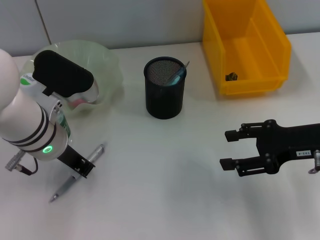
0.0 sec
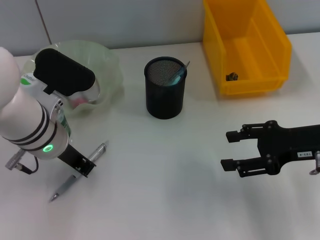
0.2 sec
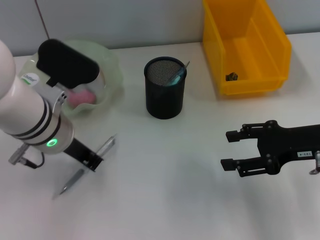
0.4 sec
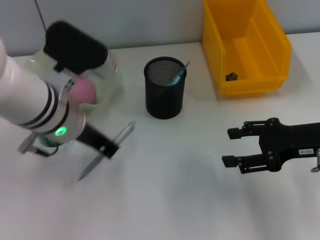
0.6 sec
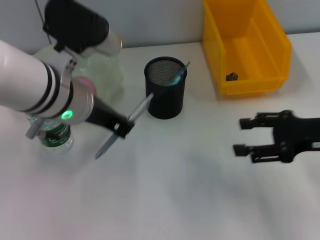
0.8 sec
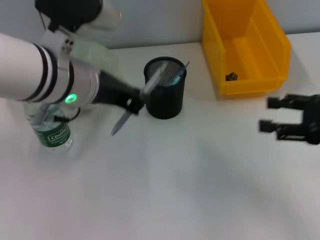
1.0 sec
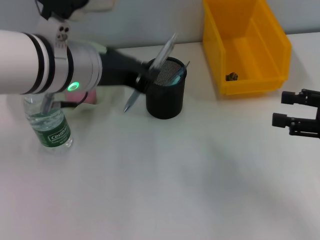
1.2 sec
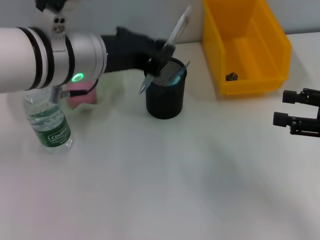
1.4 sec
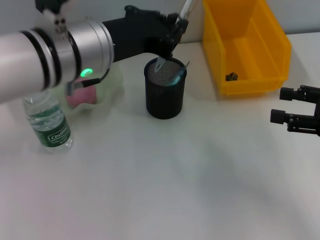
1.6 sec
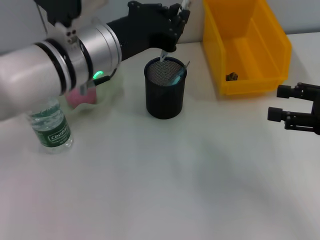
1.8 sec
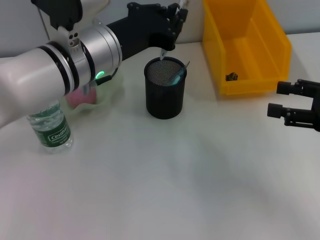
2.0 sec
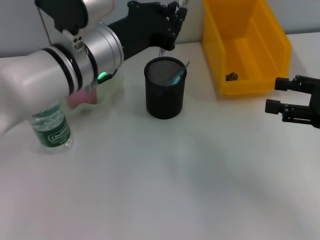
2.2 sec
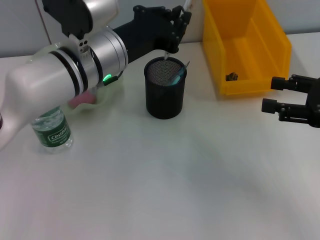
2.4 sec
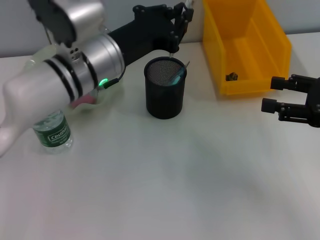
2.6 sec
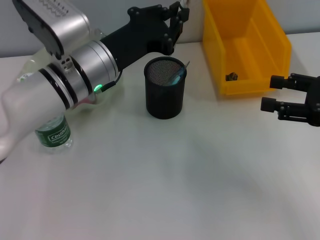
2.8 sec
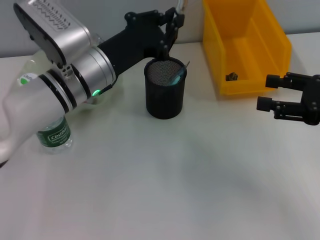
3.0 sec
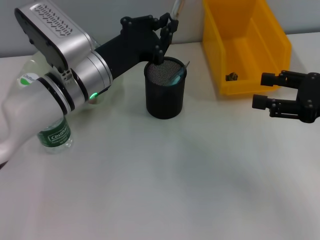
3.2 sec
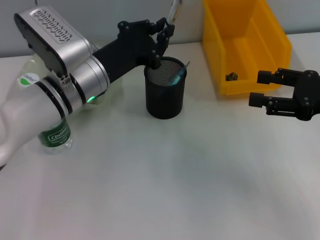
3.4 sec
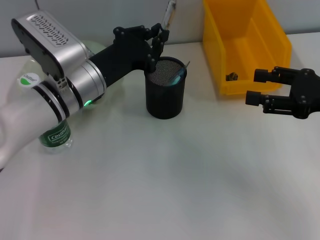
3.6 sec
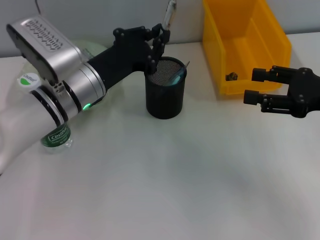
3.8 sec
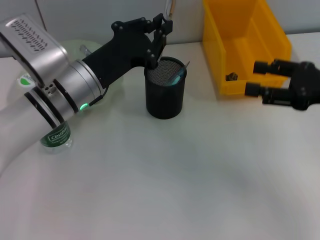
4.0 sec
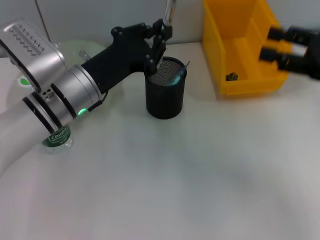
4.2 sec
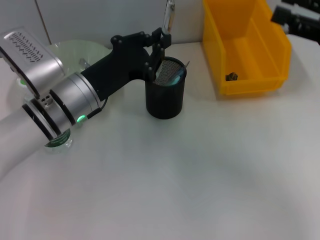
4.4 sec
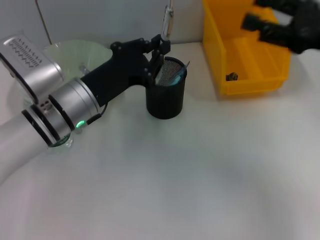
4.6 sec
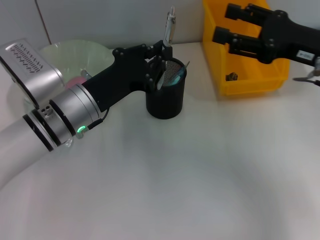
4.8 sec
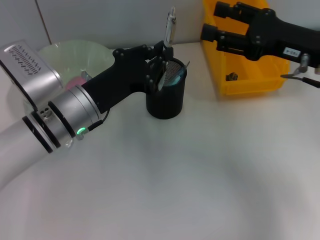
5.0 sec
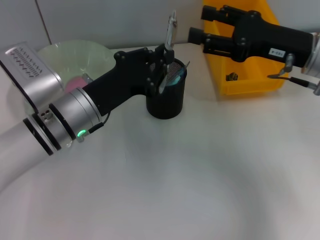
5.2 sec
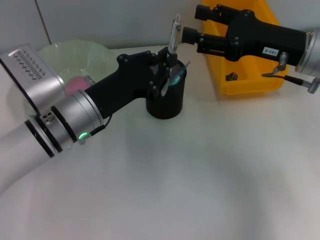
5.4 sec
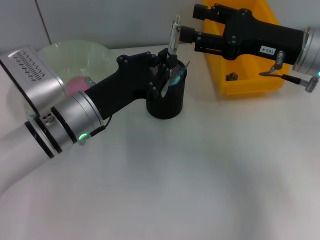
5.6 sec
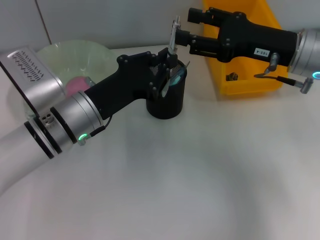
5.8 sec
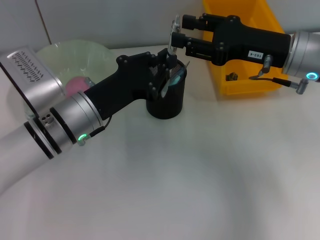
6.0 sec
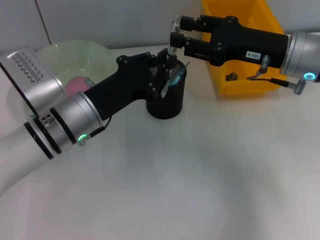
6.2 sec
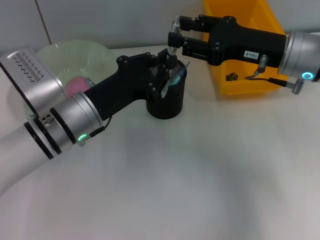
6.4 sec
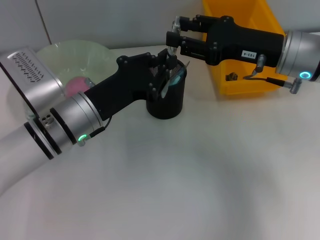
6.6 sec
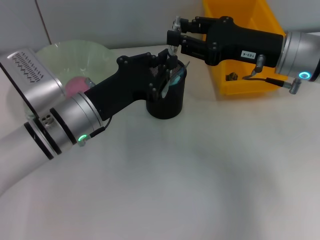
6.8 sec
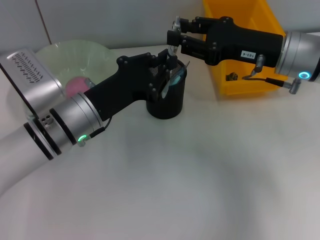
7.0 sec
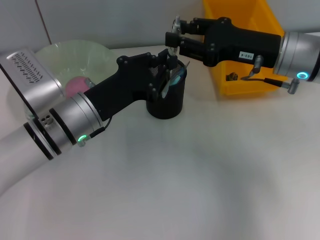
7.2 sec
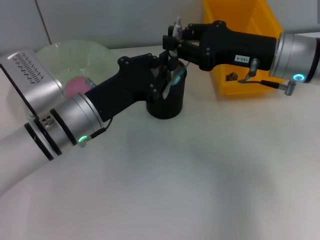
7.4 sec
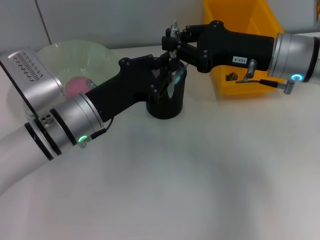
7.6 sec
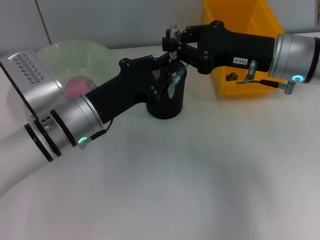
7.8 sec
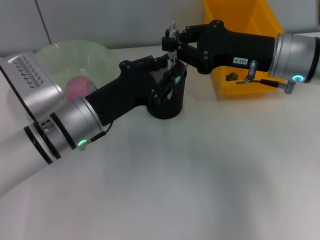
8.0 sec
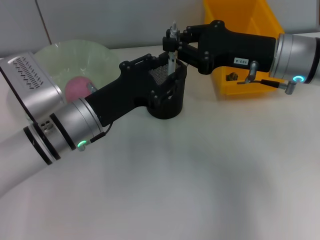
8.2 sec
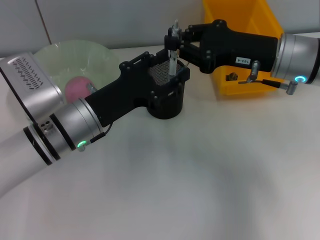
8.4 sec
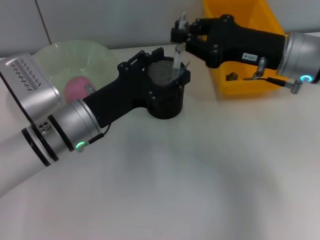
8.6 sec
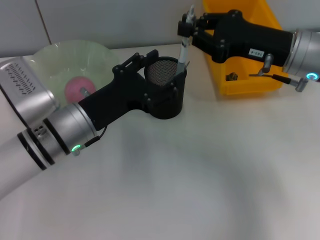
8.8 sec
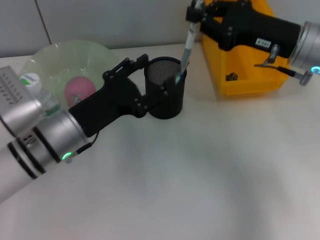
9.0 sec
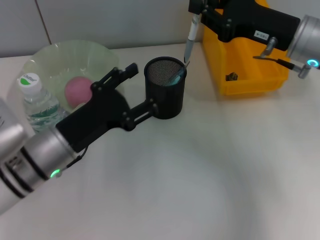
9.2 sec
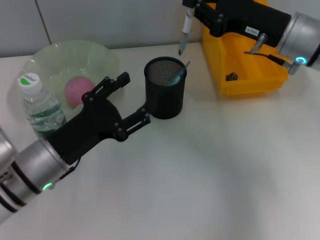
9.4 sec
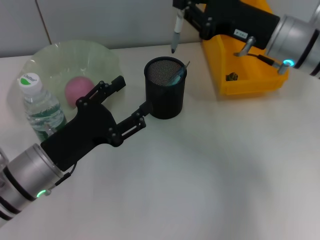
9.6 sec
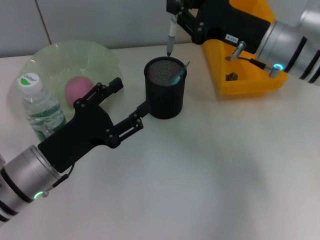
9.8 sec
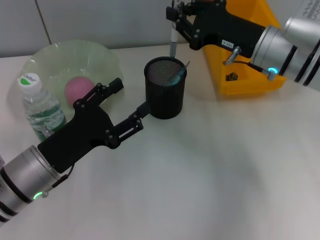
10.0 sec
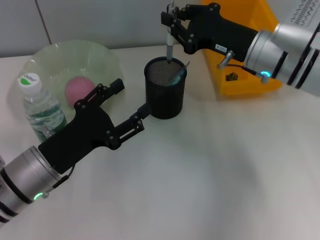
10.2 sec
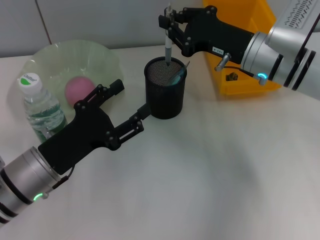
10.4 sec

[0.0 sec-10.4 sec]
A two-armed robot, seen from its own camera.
Step, 0.2 sec to 8.6 sec: Pass the gray spring-action pen from the left hand to the right hand.
0.0 sec to 1.4 sec: The right gripper goes some 5 cm to the right. Meanwhile the left gripper goes about 10 cm upward.
1.4 sec to 3.0 sec: The left gripper is displaced downward by approximately 10 cm.
3.0 sec to 4.4 sec: The right gripper ends up roughly 5 cm from where it was.
4.4 sec to 6.0 sec: The right gripper travels to the left and forward by about 10 cm.
6.0 sec to 7.4 sec: The right gripper closes.
7.4 sec to 9.0 sec: The left gripper opens its fingers.
9.0 sec to 10.4 sec: The left gripper ends up approximately 5 cm from where it was, while the right gripper shifts by approximately 5 cm.

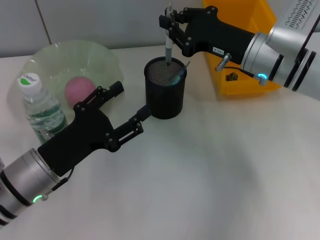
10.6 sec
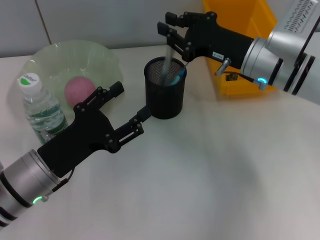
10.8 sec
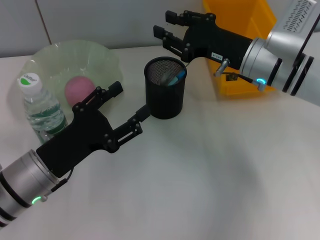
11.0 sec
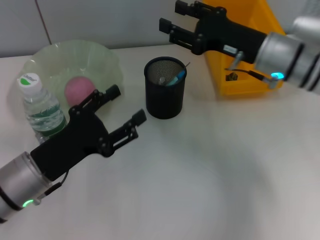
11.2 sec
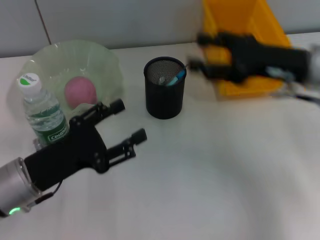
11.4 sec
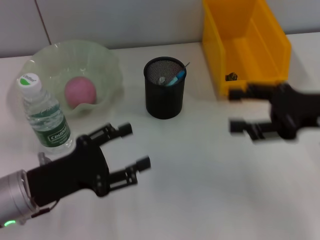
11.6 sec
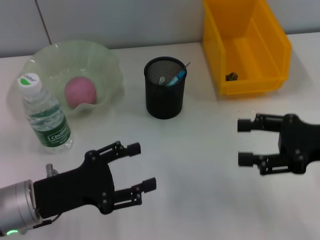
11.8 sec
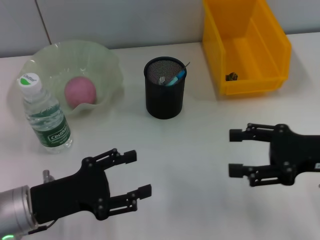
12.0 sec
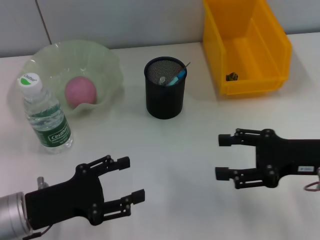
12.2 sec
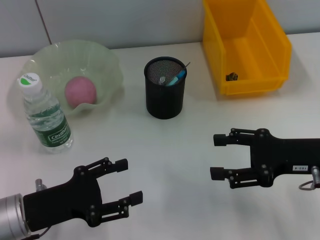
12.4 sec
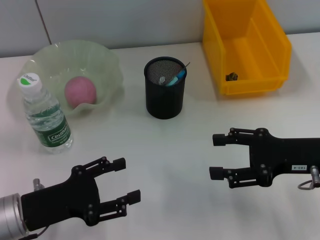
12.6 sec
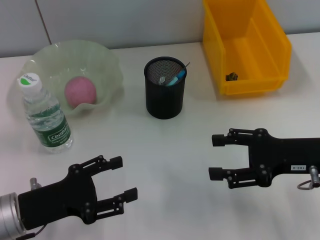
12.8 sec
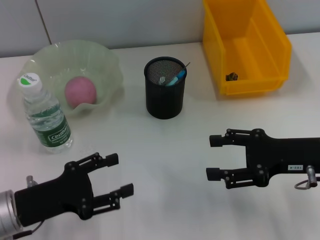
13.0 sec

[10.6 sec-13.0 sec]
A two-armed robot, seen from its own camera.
10.6 sec to 11.8 sec: The right gripper goes approximately 20 cm backward and to the right, and opens.
11.8 sec to 13.0 sec: The grippers make only small movements.

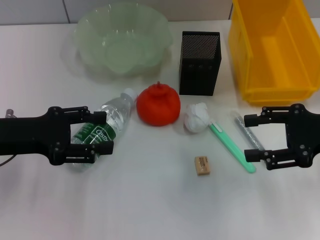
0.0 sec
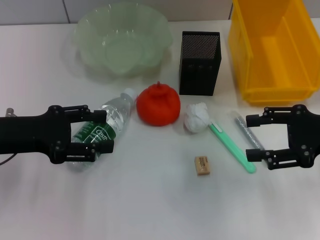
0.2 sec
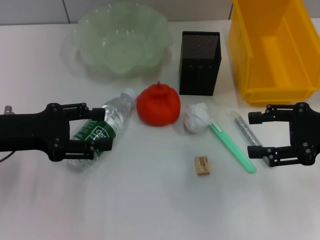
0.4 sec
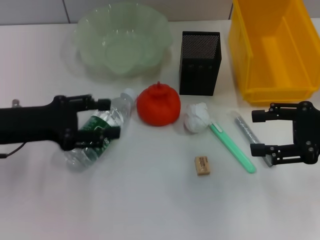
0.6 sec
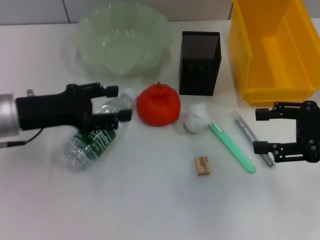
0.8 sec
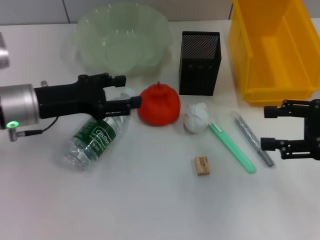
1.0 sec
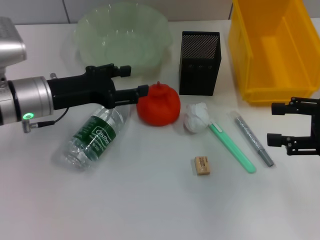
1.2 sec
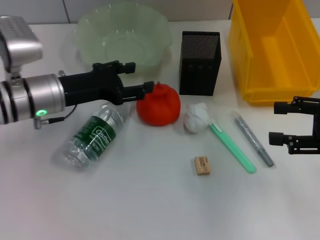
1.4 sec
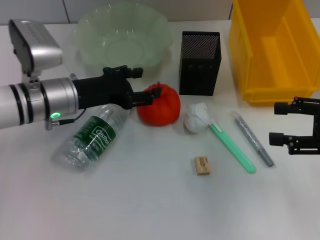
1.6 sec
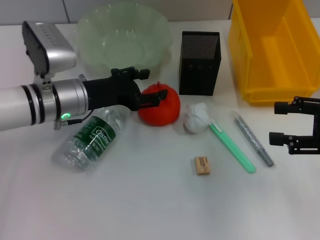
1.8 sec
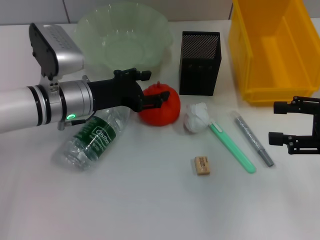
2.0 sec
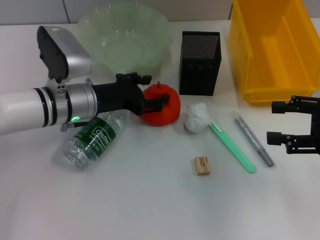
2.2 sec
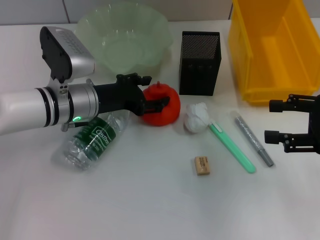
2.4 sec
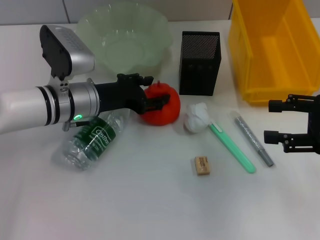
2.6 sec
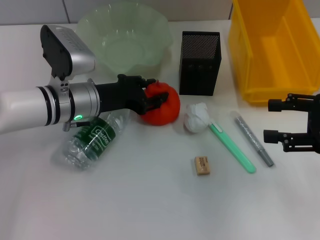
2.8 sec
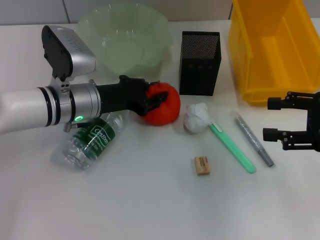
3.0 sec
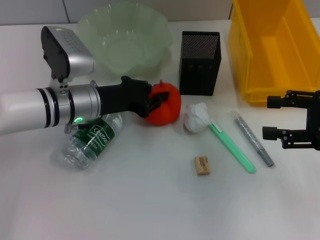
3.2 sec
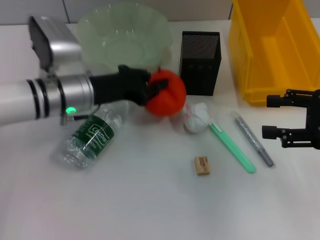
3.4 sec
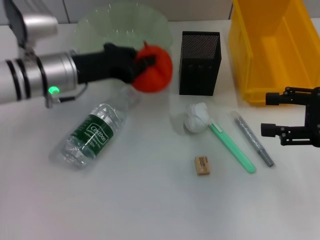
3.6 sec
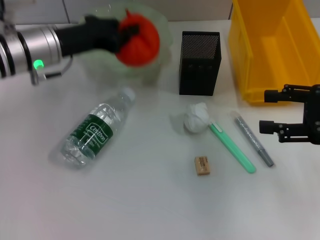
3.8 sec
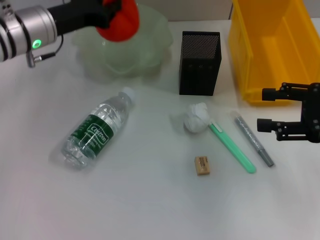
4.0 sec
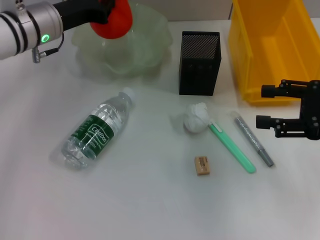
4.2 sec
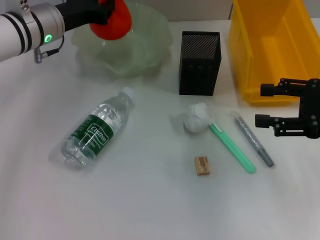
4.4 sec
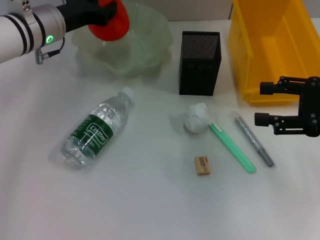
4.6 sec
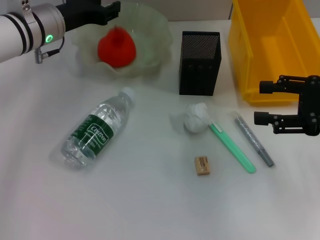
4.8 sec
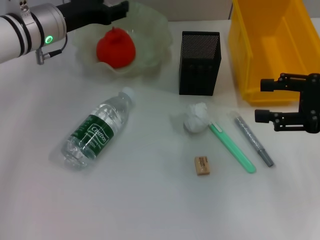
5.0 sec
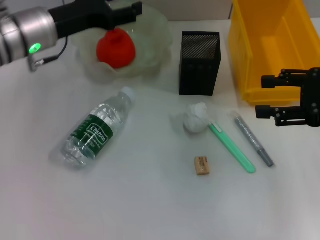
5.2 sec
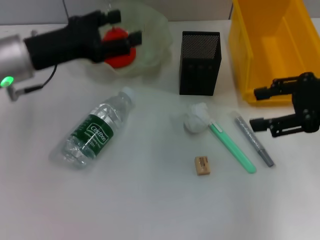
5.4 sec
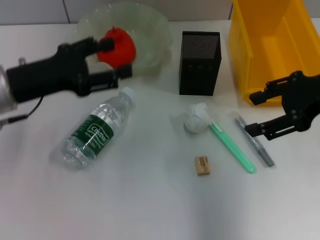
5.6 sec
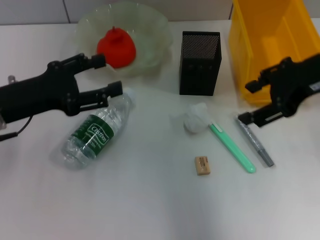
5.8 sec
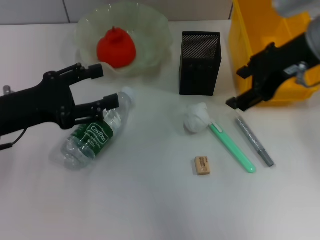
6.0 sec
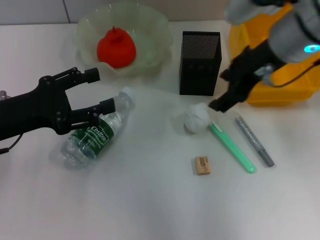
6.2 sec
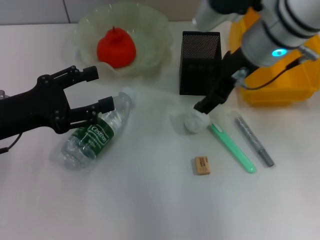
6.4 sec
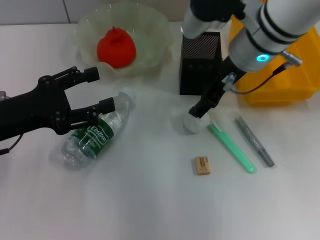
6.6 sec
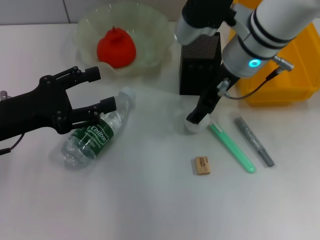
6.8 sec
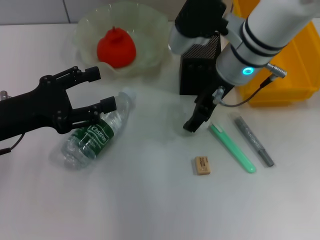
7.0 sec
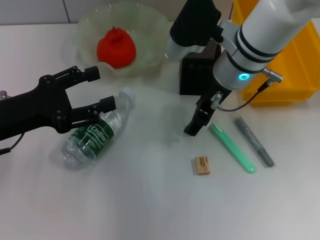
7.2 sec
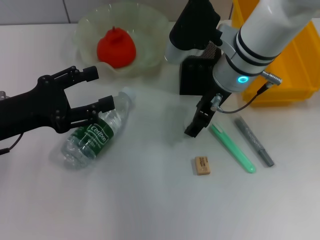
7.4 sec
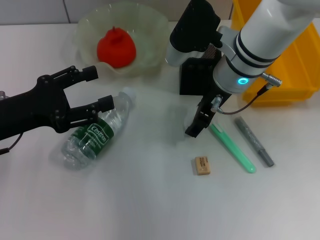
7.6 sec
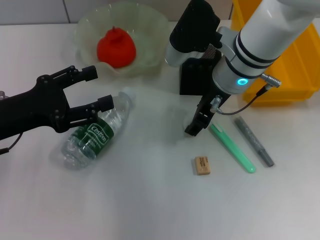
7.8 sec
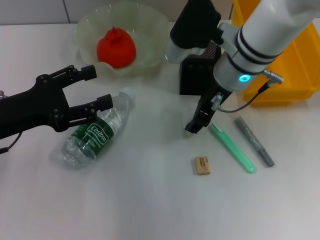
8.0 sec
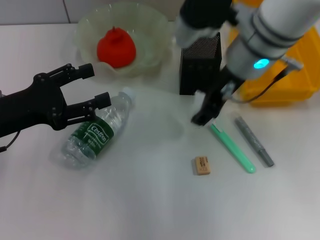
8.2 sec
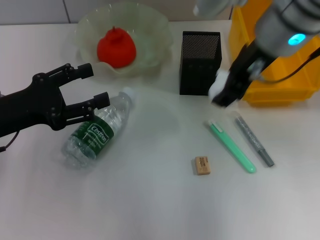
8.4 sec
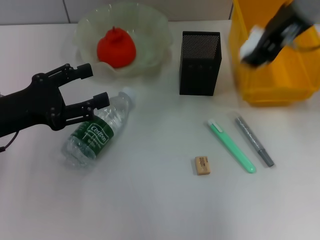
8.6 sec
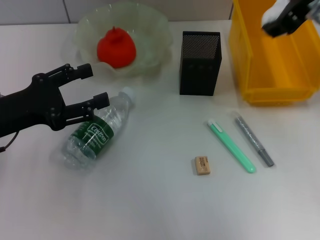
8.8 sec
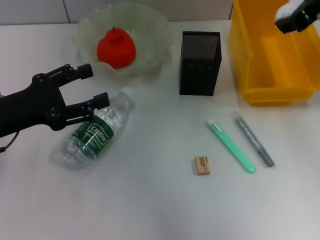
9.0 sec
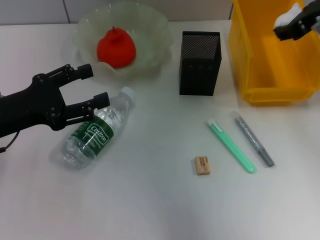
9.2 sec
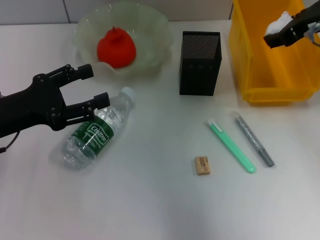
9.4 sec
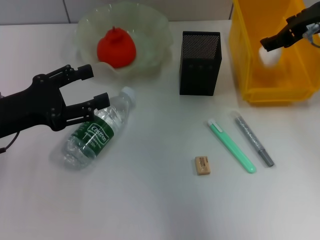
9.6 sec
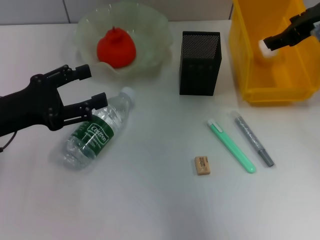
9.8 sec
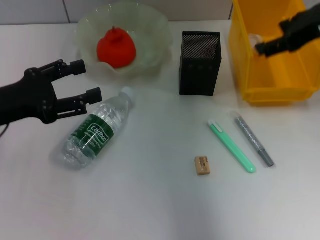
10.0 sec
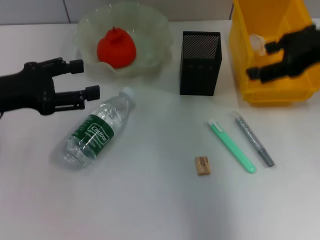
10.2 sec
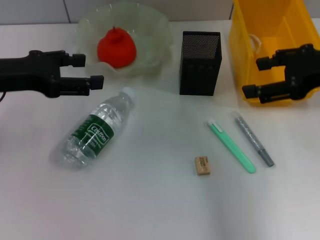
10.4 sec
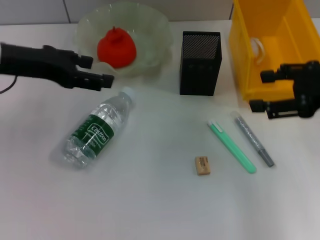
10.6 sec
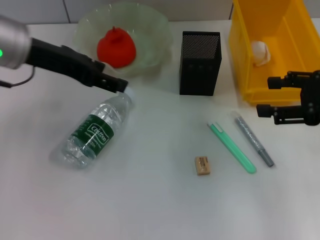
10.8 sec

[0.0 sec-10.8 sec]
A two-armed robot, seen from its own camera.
Step, 0.0 sec to 3.0 sec: Grab the orange with the left hand.
Step, 3.2 sec to 4.8 sec: Place the orange into the fruit bowl with the left hand.
Step, 5.0 sec to 7.6 sec: Grab the paper ball with the right hand.
Step, 8.0 sec to 9.6 sec: Place the paper ball into the trash can with the right hand.
0.0 sec to 1.6 sec: The left gripper goes some 10 cm to the right and forward.
1.6 sec to 3.0 sec: The left gripper closes.
3.0 sec to 4.6 sec: The left gripper heads forward and upward, covering roughly 10 cm, and closes up.
4.6 sec to 6.2 sec: The left gripper goes roughly 20 cm backward and to the left, and opens. The right gripper travels to the left, upward and forward by about 20 cm.
6.2 sec to 7.8 sec: The right gripper shifts some 10 cm downward and to the left.
7.8 sec to 9.2 sec: The right gripper shifts roughly 15 cm to the right and upward.
9.2 sec to 10.8 sec: The right gripper moves backward, to the right and downward, approximately 15 cm, and opens up. The left gripper is displaced upward, forward and to the right by approximately 15 cm.
